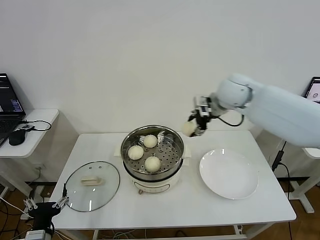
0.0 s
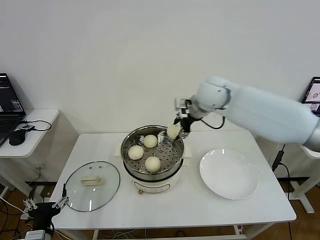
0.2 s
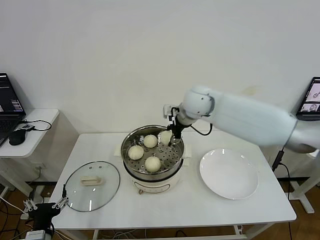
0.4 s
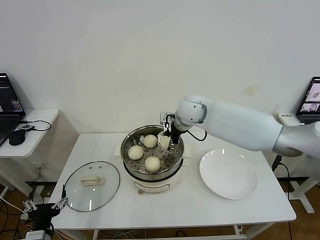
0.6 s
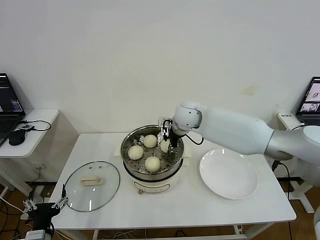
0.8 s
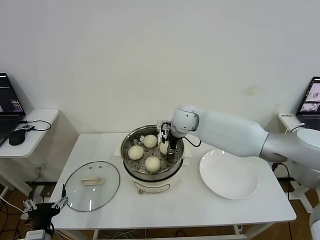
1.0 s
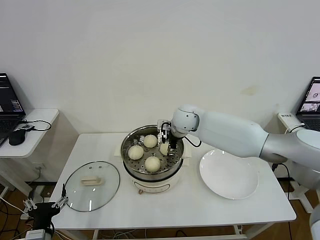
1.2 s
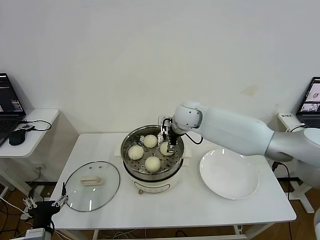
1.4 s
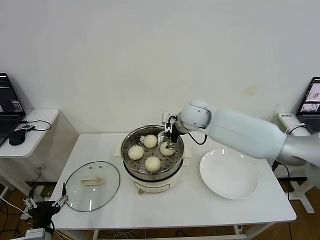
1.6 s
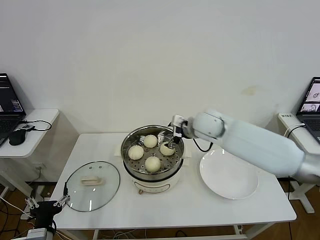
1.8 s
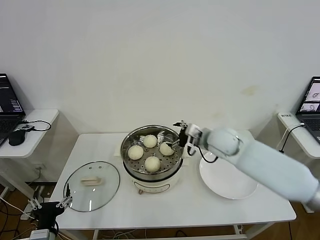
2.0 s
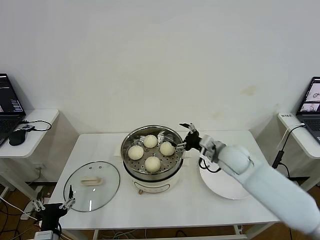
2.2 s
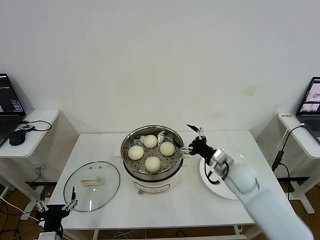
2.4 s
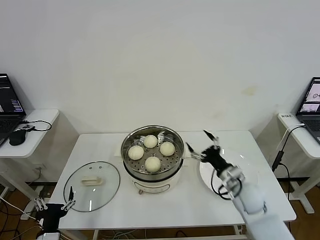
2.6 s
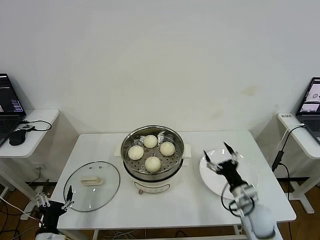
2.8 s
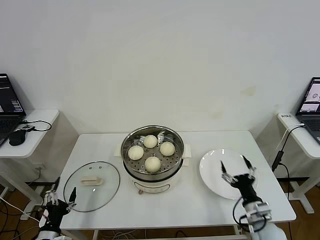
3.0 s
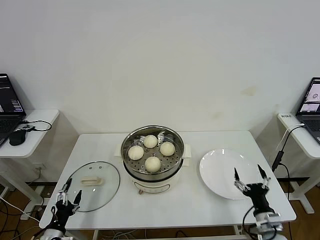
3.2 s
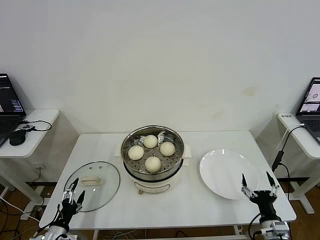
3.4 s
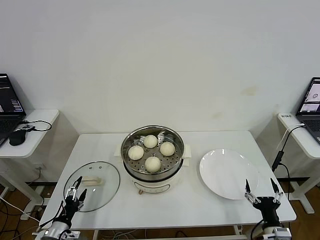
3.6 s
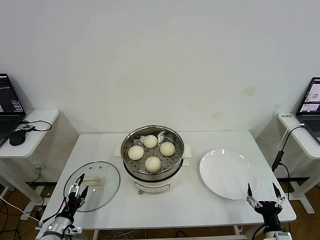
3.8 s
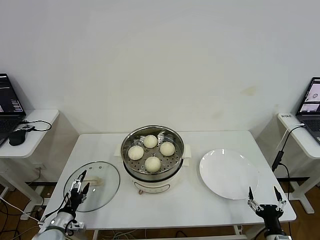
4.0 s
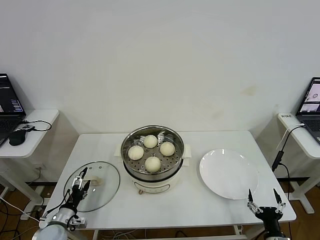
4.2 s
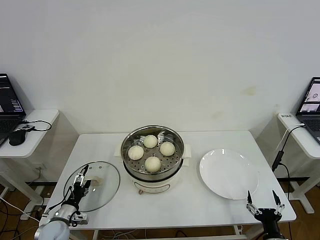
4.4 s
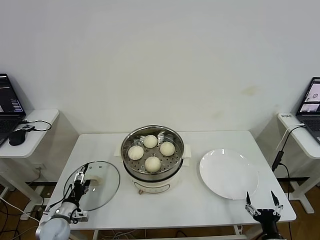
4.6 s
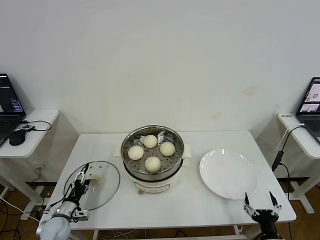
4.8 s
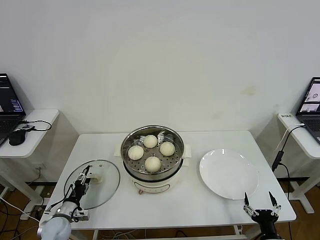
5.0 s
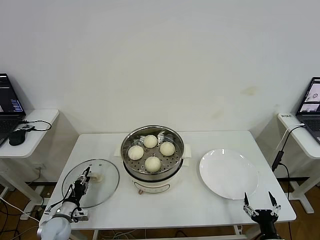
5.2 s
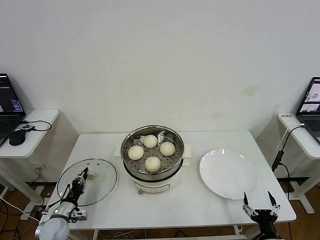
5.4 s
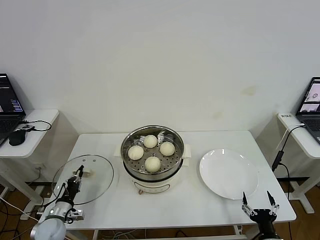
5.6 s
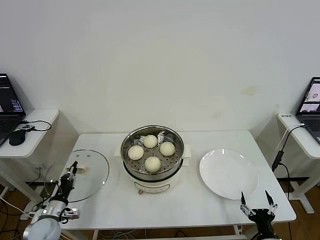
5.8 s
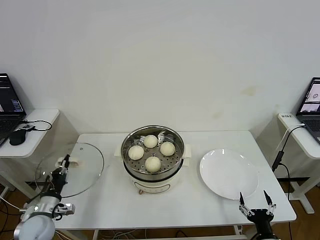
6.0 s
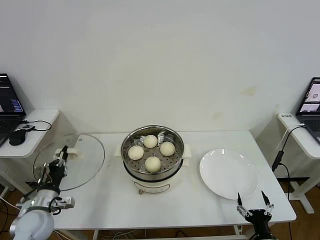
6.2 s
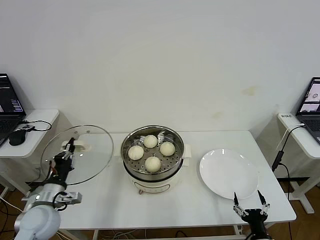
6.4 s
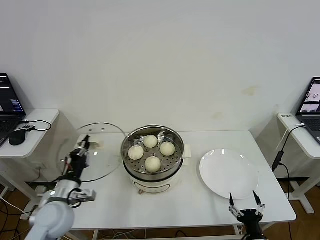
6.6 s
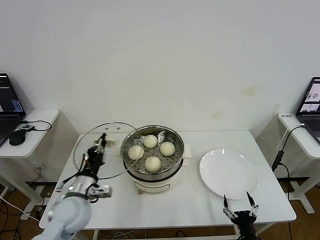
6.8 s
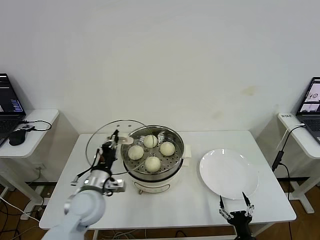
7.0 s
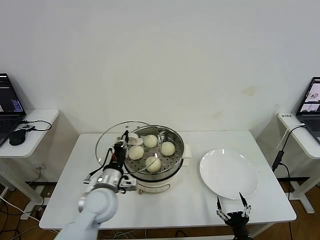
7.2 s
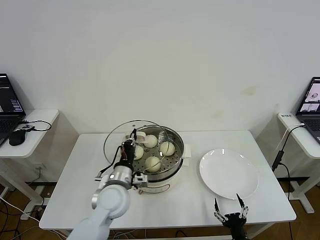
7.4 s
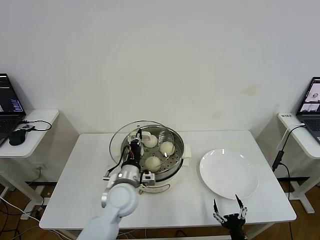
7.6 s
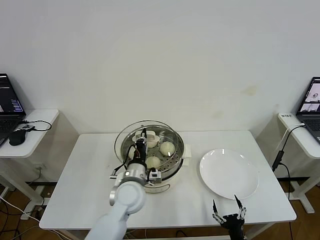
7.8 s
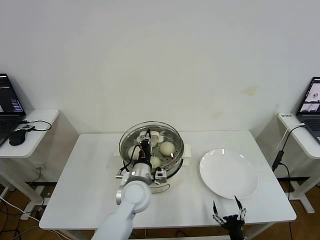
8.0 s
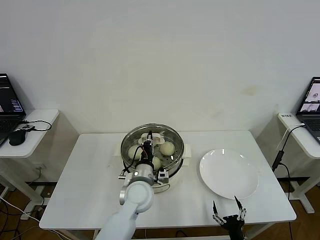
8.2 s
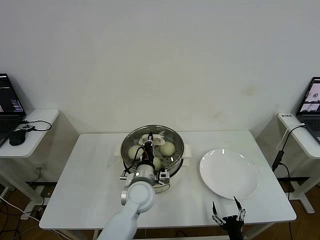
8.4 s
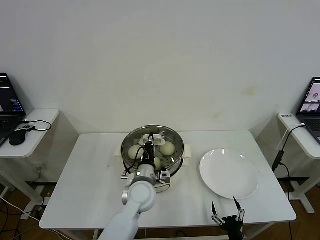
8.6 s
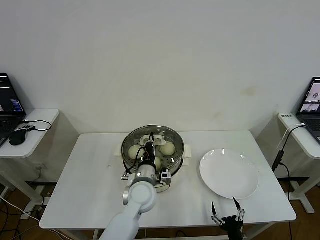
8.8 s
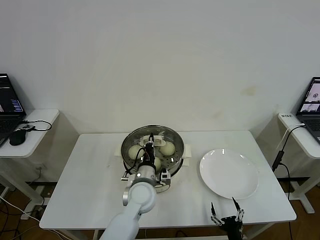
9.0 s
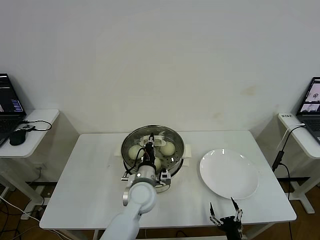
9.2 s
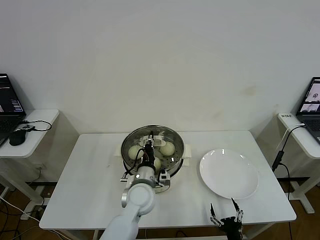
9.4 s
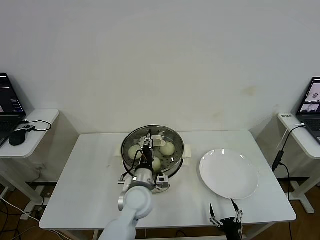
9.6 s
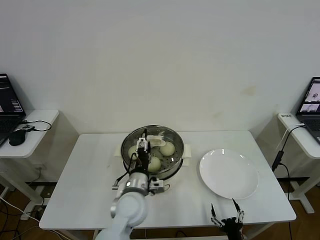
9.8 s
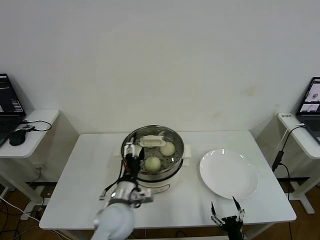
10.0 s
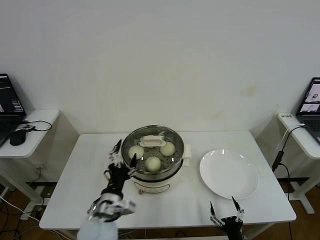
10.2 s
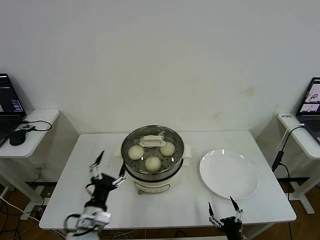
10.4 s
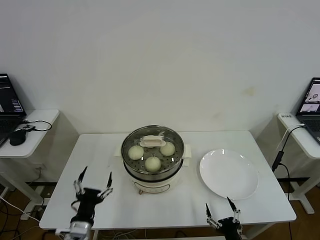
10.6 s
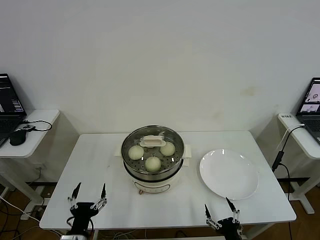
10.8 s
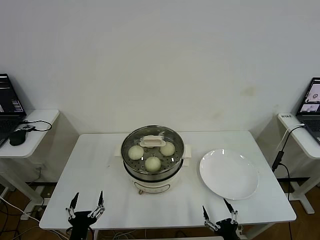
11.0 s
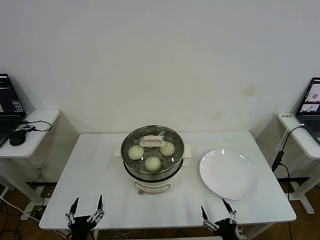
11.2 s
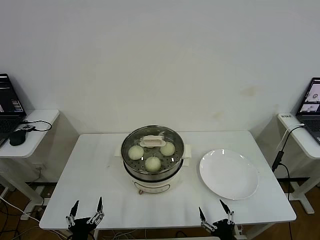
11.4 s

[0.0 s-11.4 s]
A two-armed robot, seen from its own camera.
Step, 0.0 to 1.2 s: Place the baozi on the steamer with right gripper.
Step, 1.4 to 5.4 s: Grasp the pot lid with left gripper.
Step, 5.8 to 9.6 s: Place the pot lid on the steamer with left gripper.
0.0 to 1.4 s: The right gripper heads to the left and downward, covering approximately 15 cm, and opens its fingers.
1.4 to 2.8 s: The left gripper goes roughly 5 cm downward, while the right gripper shifts approximately 40 cm backward, to the right and downward.
2.8 to 4.2 s: The left gripper moves forward and downward, some 10 cm. Meanwhile the right gripper shifts approximately 20 cm backward, downward and to the right.
4.2 to 5.6 s: The left gripper closes its fingers.
5.6 to 7.2 s: The left gripper heads to the right and upward, covering approximately 25 cm. Meanwhile the right gripper moves to the left, approximately 5 cm.
7.2 to 8.6 s: The left gripper travels to the right by about 10 cm.
8.6 to 10.0 s: The left gripper travels backward by some 5 cm, and opens.
10.0 to 11.4 s: The left gripper is displaced backward, to the left and downward by about 25 cm. The right gripper shifts by approximately 5 cm.
